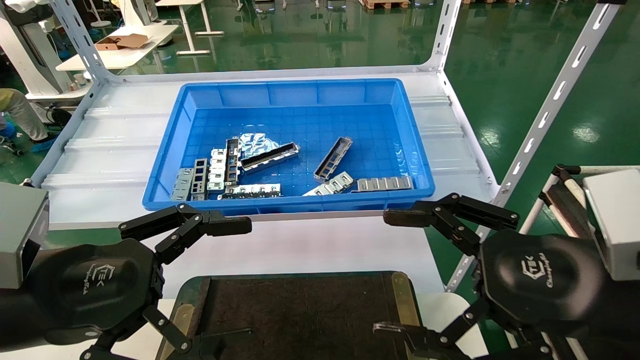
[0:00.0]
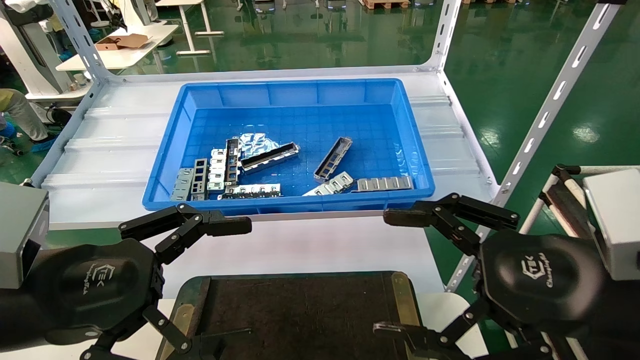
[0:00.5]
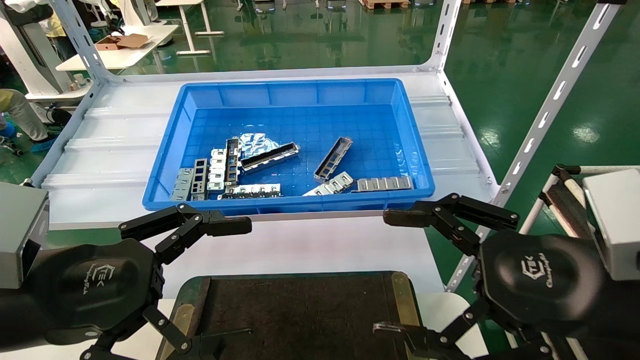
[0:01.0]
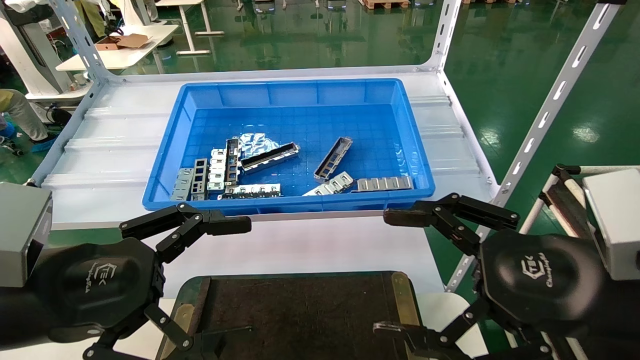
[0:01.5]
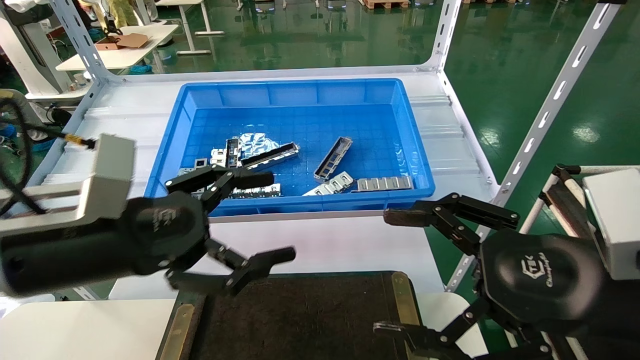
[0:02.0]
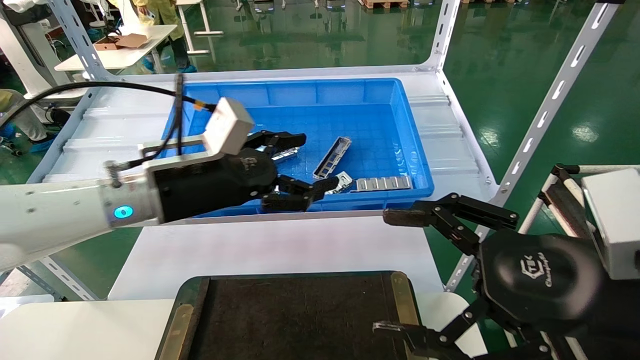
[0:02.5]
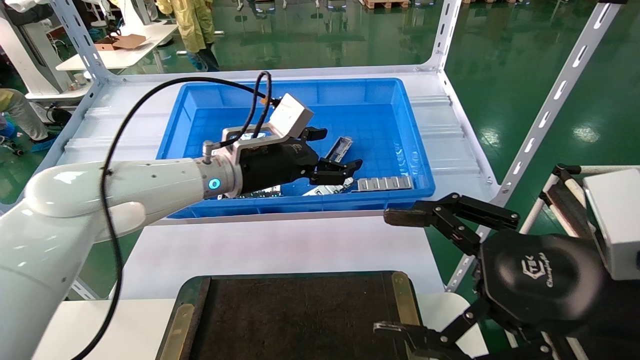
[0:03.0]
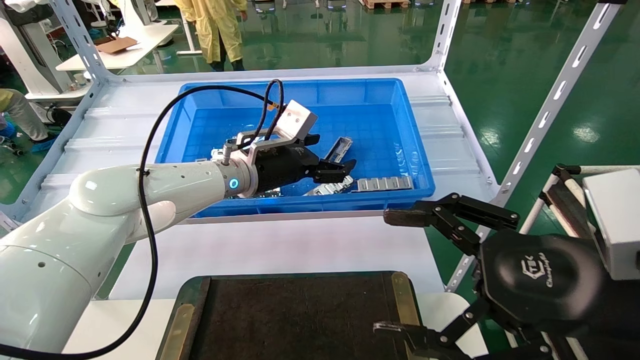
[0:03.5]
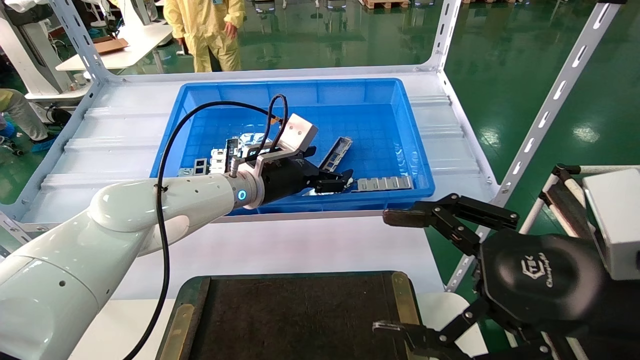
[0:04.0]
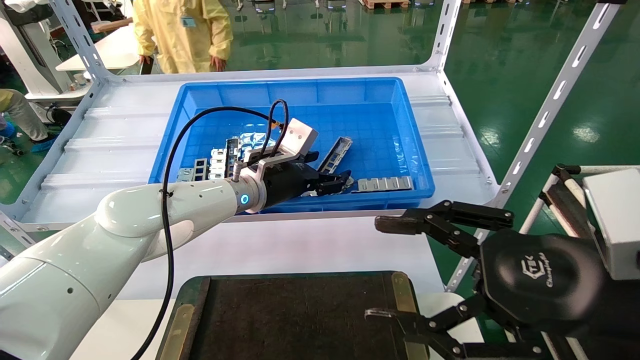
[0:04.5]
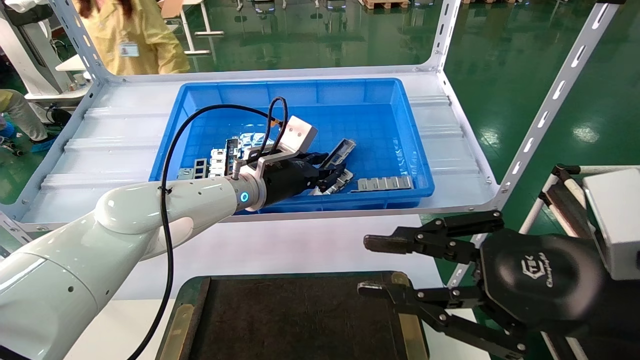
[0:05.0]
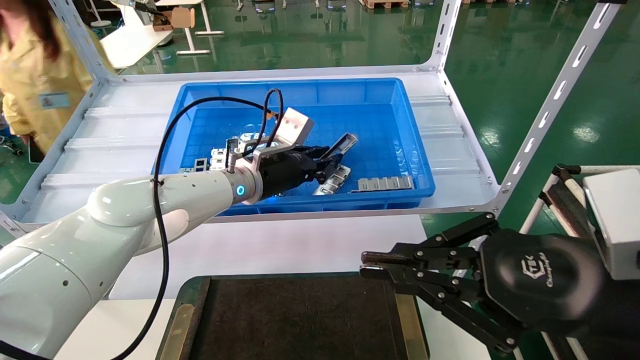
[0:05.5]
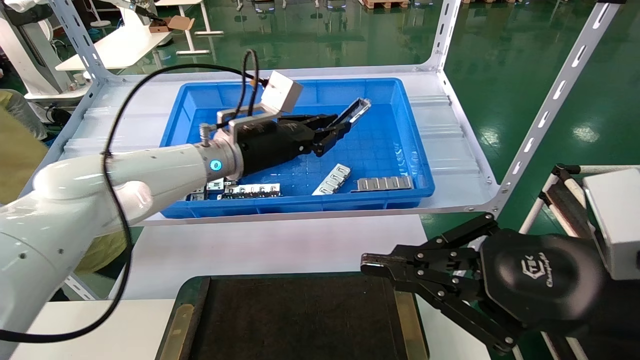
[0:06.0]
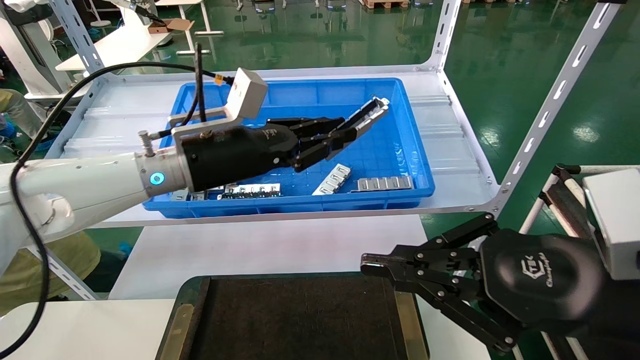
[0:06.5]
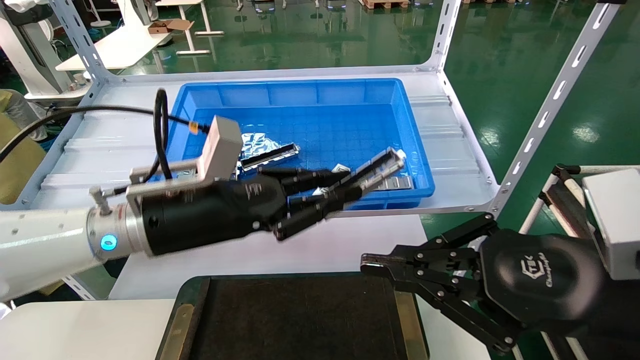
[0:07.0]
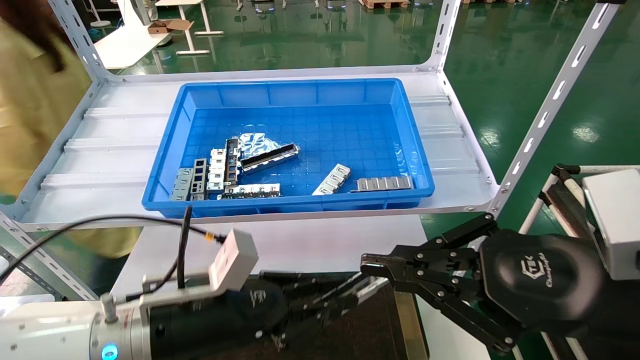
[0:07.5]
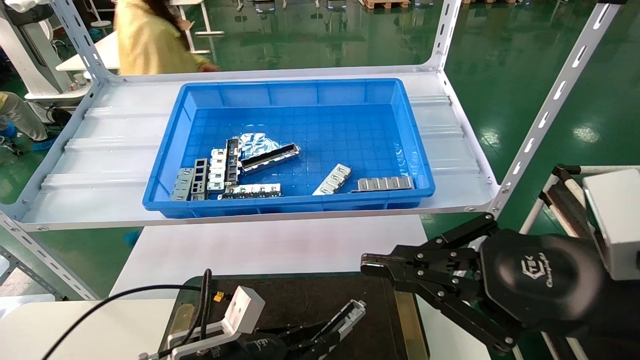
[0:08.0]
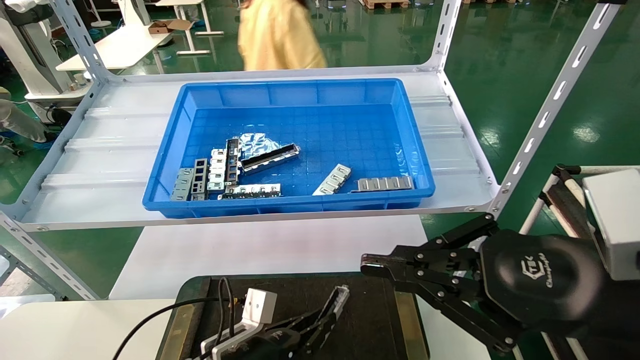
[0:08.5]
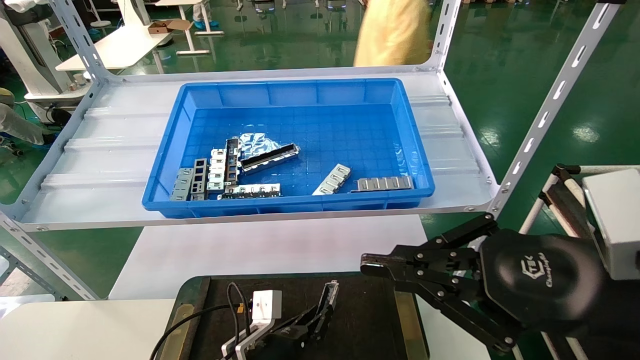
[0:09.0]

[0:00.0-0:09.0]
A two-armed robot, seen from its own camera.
Task of the whole recording: Grasp the part with one hand and place it on the black container.
Step, 0:02.0 to 0:05.0: Pick up the front USB bracket from the feeding area.
0:00.0 to 0:02.0: The left gripper heads forward, covering about 5 cm.
0:02.0 to 0:04.5: The left gripper moves forward and to the right, roughly 25 cm.
0:04.5 to 0:07.0: The right gripper closes, while the left gripper shifts roughly 15 cm backward and to the left, and closes.
0:07.0 to 0:09.0: The left gripper moves downward, about 25 cm.

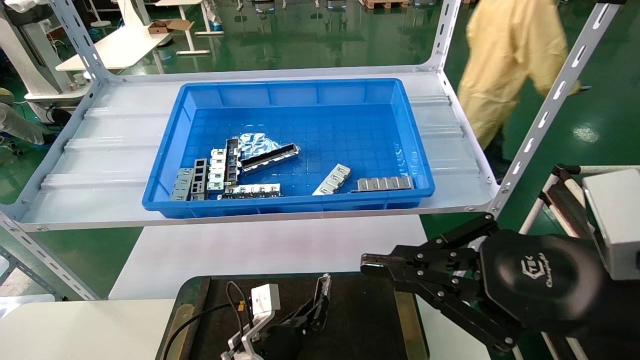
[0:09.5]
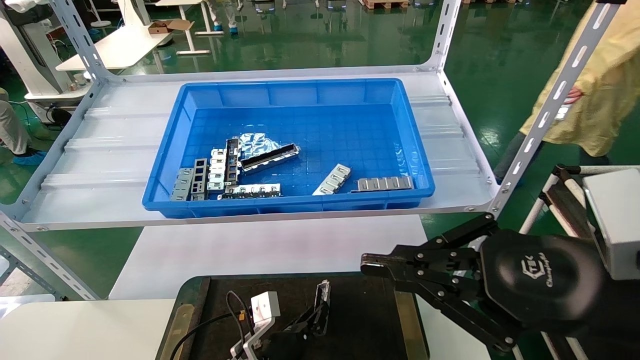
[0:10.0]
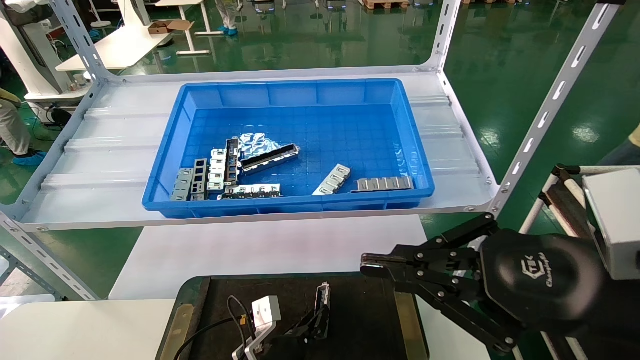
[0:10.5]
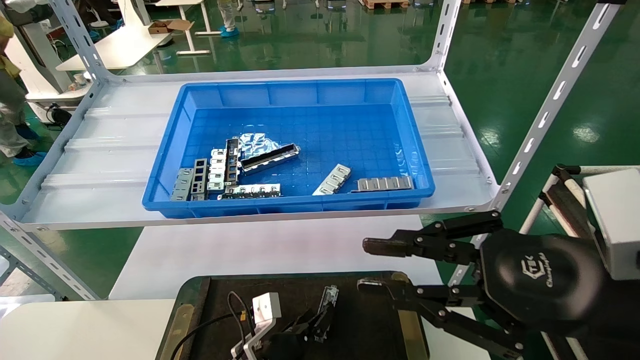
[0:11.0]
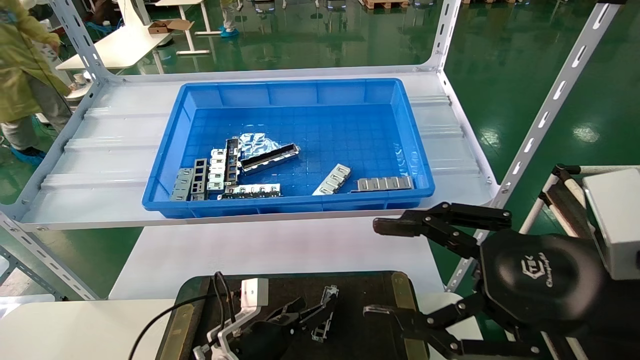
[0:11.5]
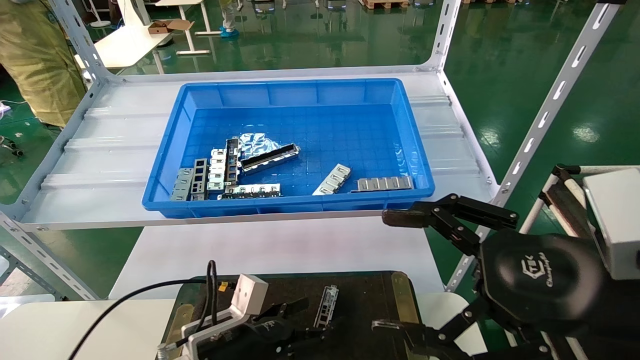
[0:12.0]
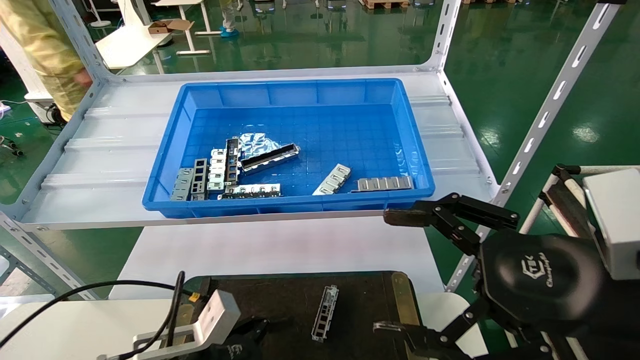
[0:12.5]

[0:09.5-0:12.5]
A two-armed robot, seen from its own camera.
Task of the whole recording: Grasp the part with one hand and place it on the black container.
0:09.5 to 0:11.0: There are only small adjustments of the grippers.
0:11.0 to 0:12.5: The right gripper opens its fingers. The left gripper shifts roughly 20 cm upward, to the left and backward, and opens.
